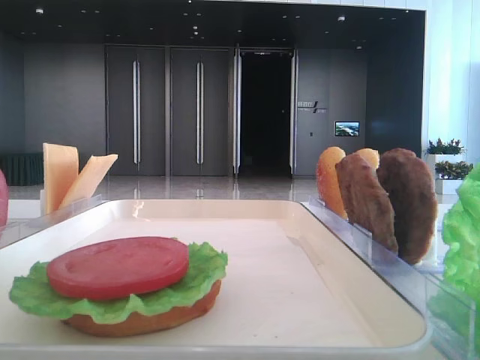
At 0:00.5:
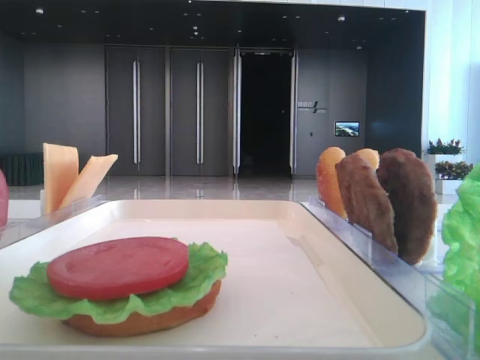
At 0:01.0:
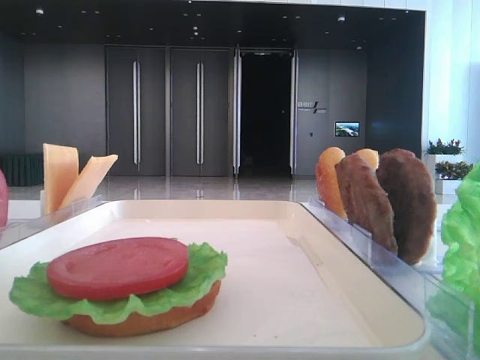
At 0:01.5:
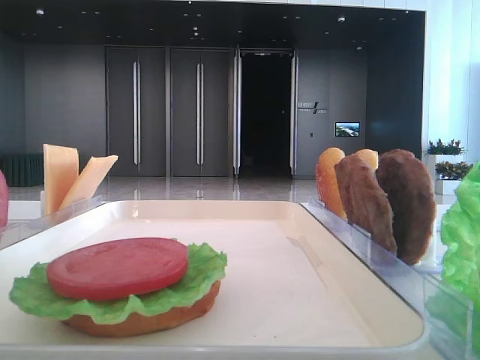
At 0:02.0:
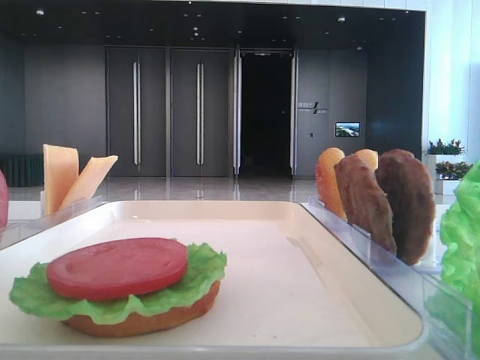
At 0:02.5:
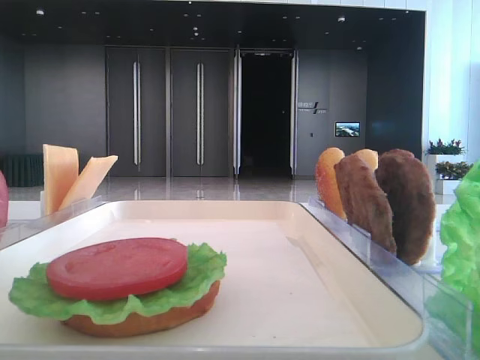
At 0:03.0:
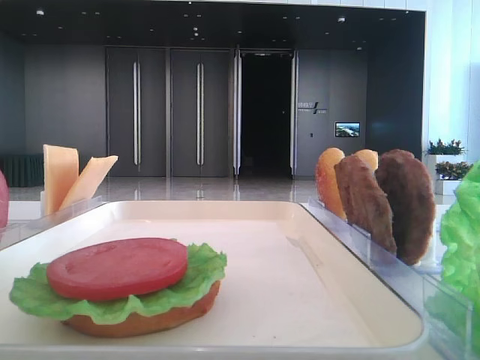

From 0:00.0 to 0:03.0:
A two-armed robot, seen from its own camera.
From 0:00.0 to 0:01.5: The left gripper shifts about 20 cm backward.
